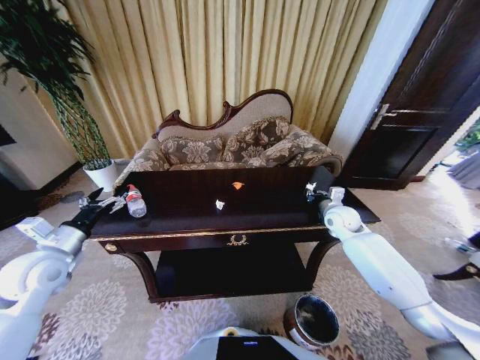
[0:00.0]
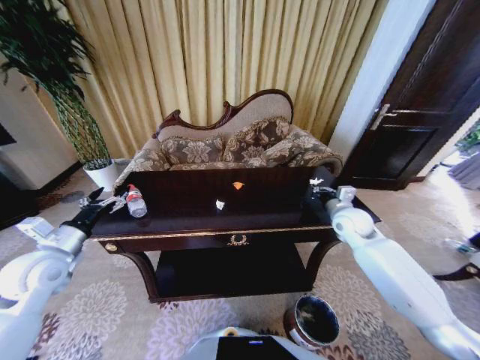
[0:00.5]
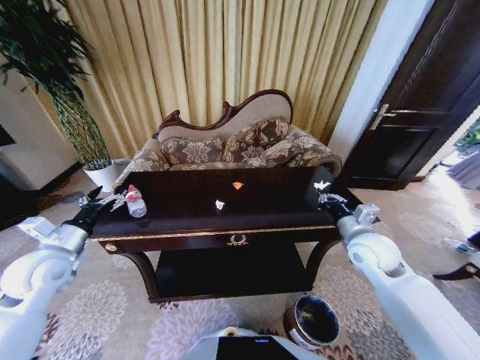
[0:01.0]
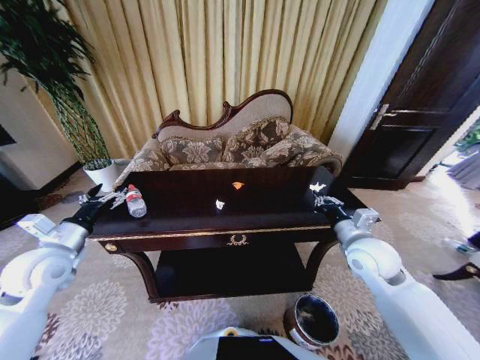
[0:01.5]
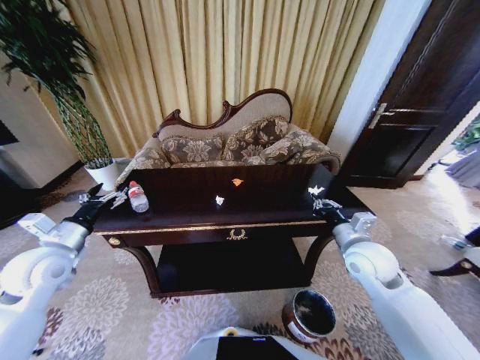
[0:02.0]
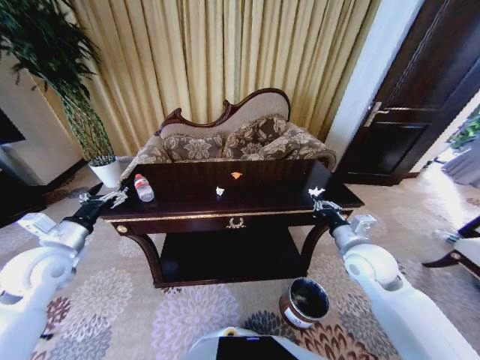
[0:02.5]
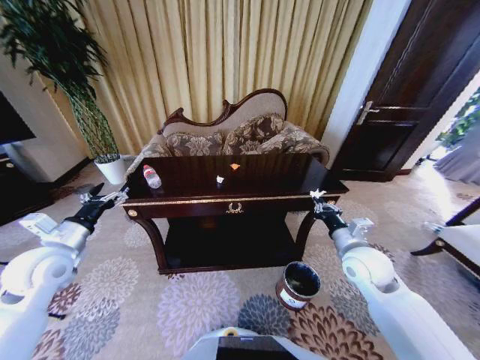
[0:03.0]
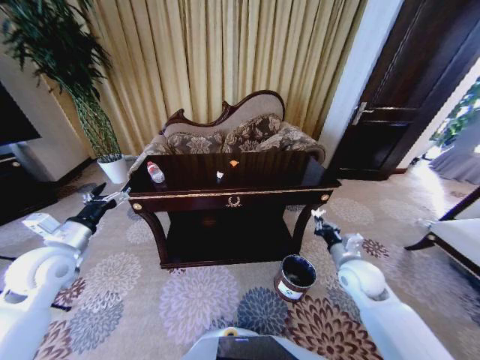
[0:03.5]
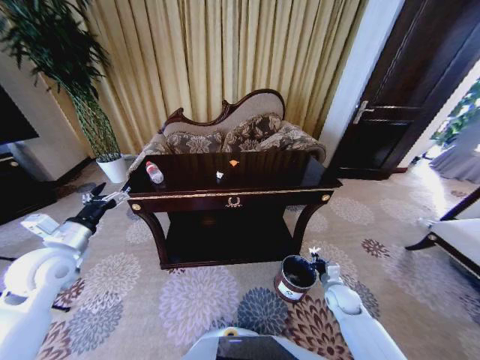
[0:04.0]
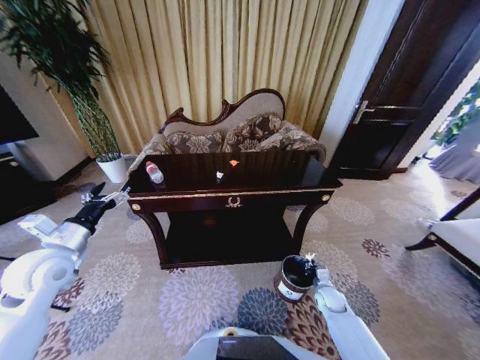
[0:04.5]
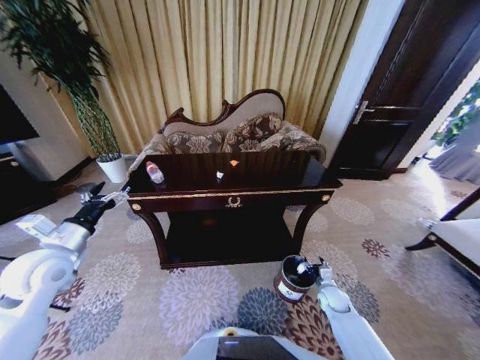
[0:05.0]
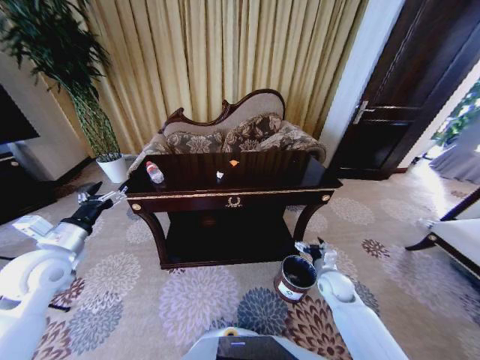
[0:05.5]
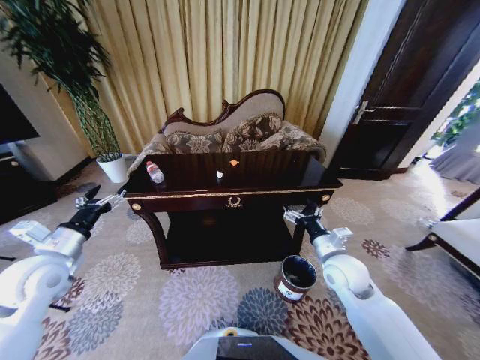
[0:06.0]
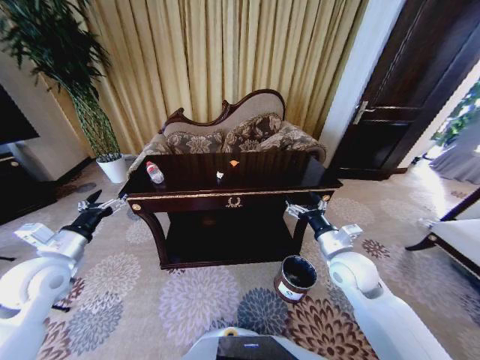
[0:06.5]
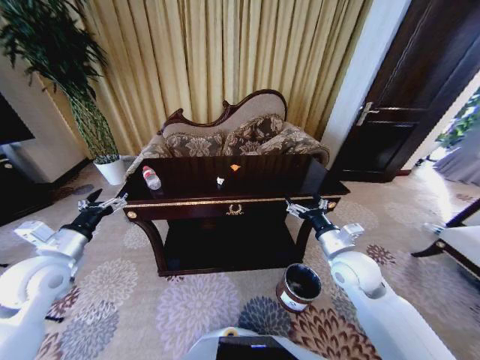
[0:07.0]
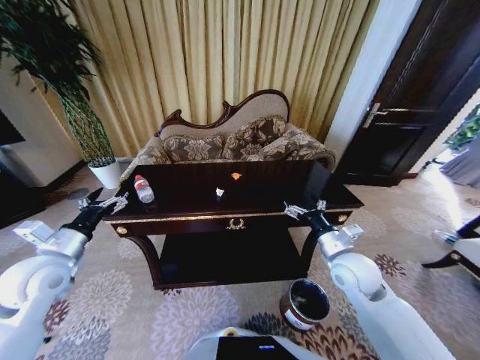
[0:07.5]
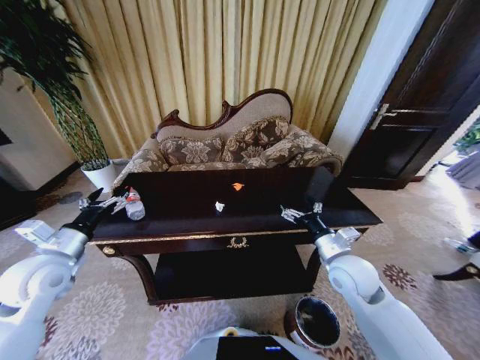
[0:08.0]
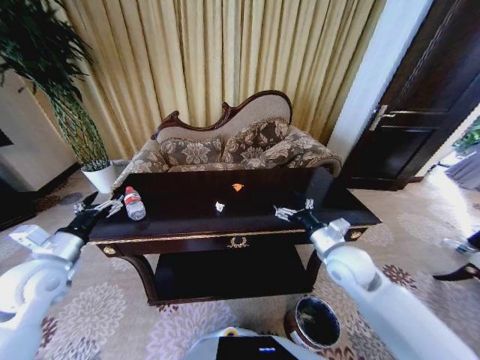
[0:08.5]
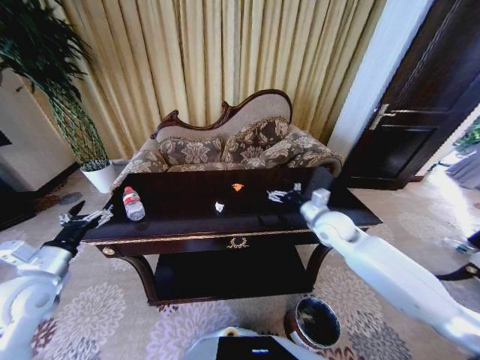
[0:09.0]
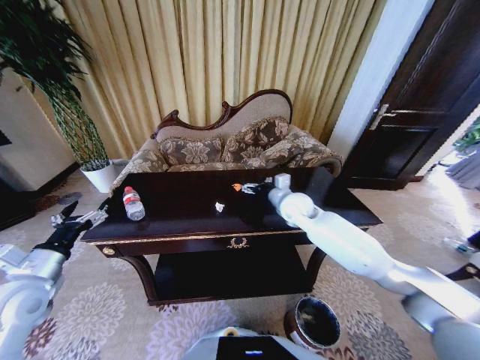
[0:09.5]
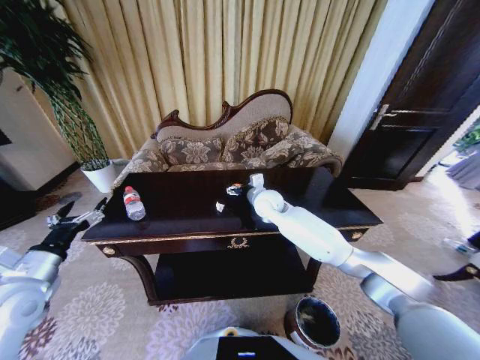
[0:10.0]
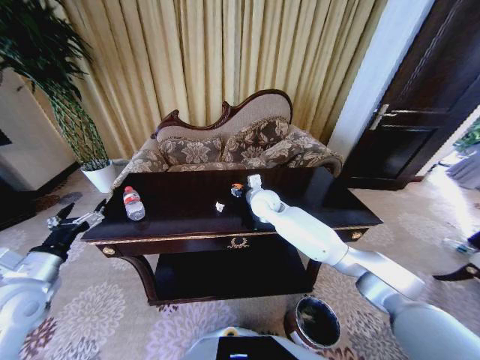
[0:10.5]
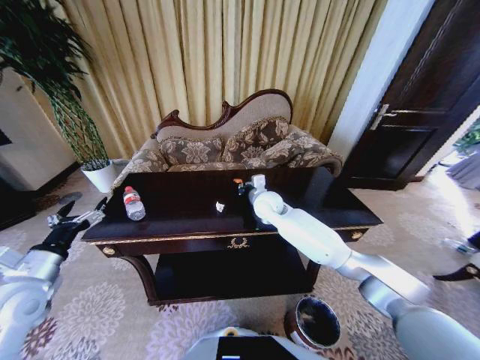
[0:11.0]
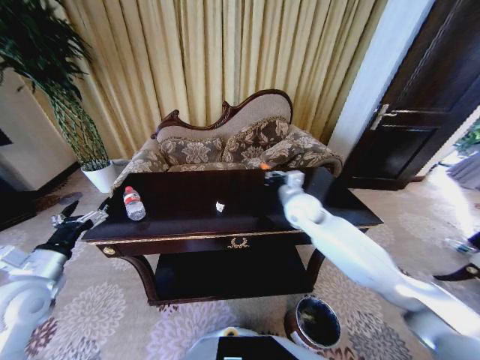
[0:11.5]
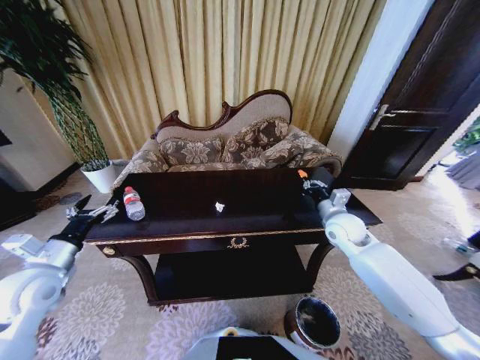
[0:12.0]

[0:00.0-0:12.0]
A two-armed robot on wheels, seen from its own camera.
Task of the whole recording: Move to the front of the table and place the trash on the table into the trash bin.
0:00.0 to 0:02.0: The right gripper shifts some 15 cm backward.
0:02.0 to 0:04.0: The right gripper is displaced downward by some 25 cm.
0:04.0 to 0:06.0: The right gripper is displaced upward and to the left by approximately 20 cm, and opens.
0:08.0 to 0:10.0: The right gripper goes roughly 30 cm forward and to the left. The left gripper shifts approximately 5 cm backward.
0:10.0 to 0:12.0: The right gripper goes approximately 25 cm to the right and backward, and closes its fingers.

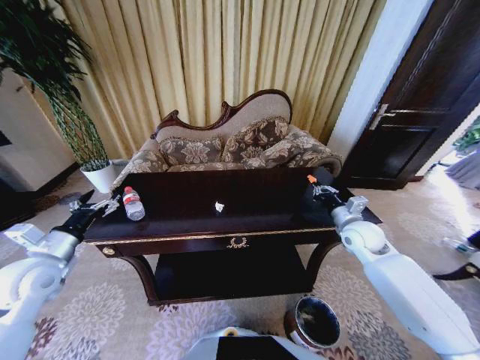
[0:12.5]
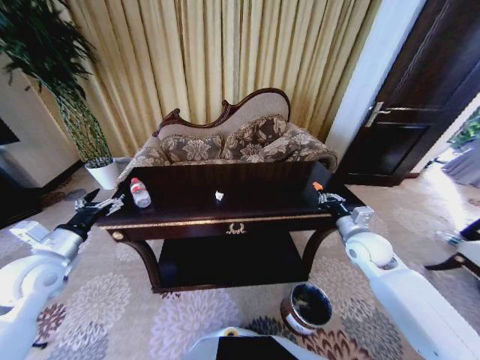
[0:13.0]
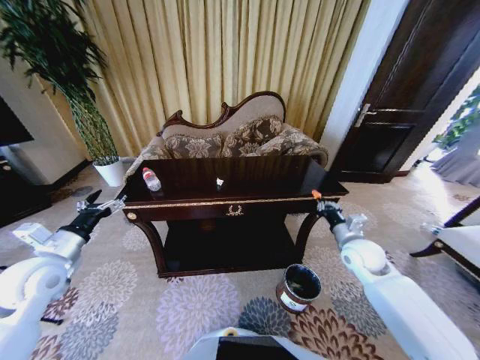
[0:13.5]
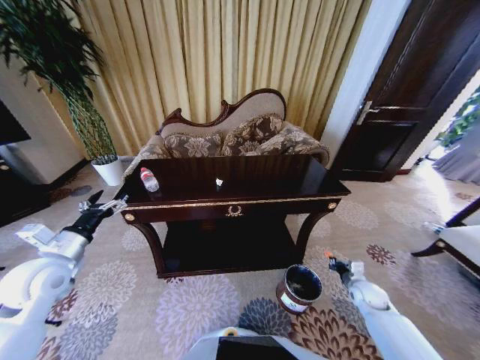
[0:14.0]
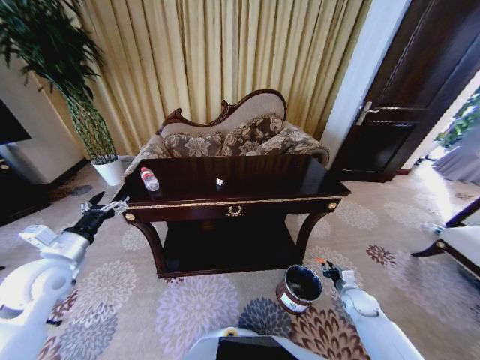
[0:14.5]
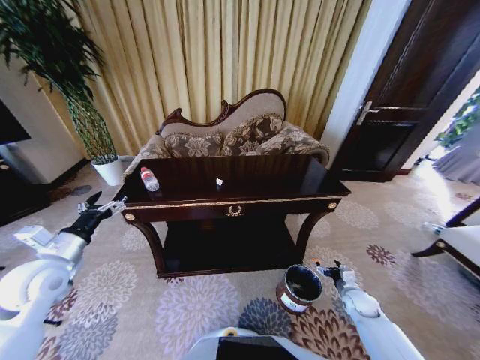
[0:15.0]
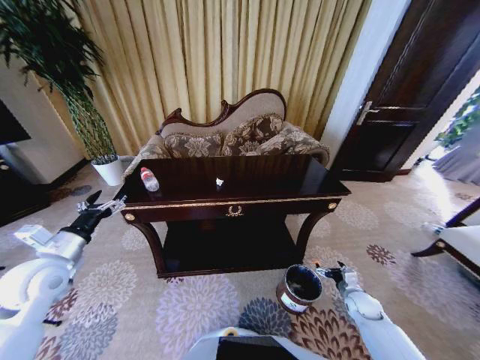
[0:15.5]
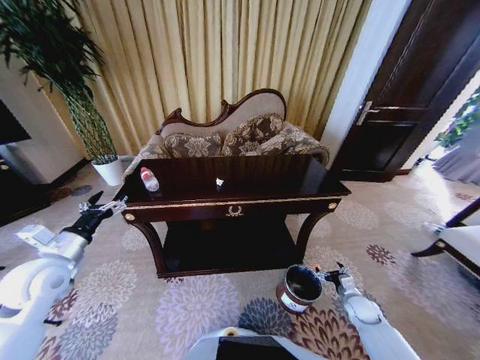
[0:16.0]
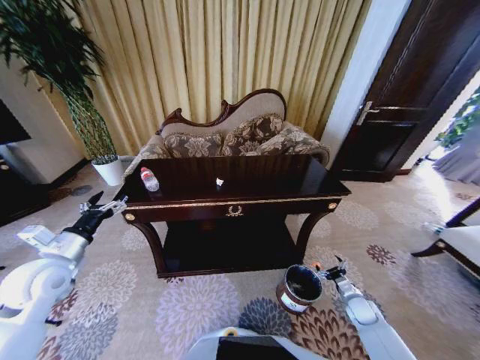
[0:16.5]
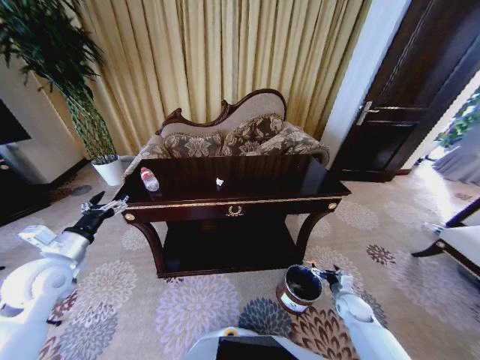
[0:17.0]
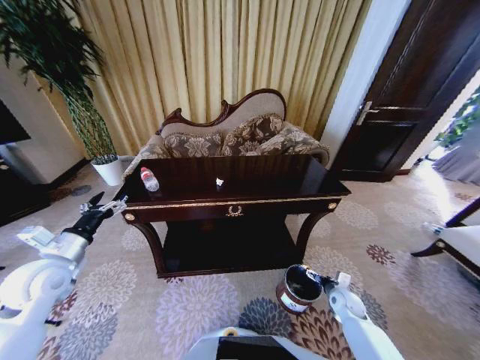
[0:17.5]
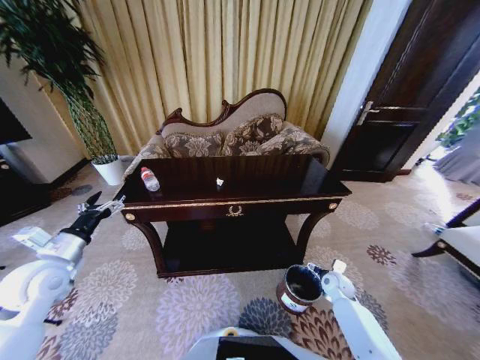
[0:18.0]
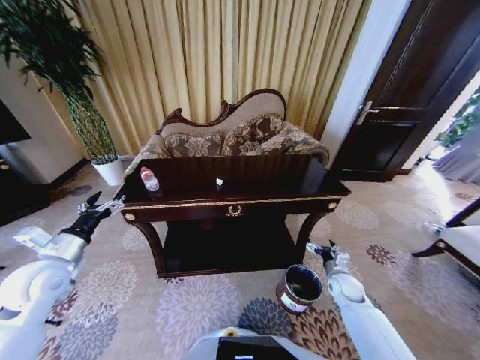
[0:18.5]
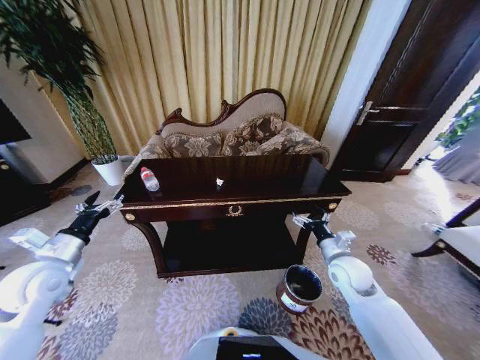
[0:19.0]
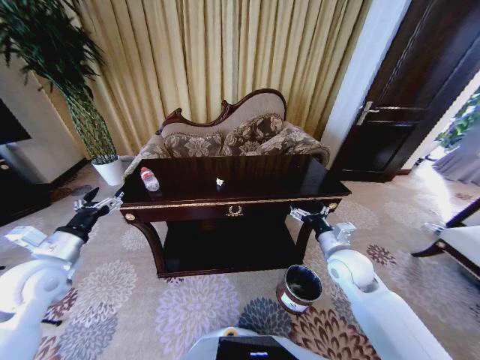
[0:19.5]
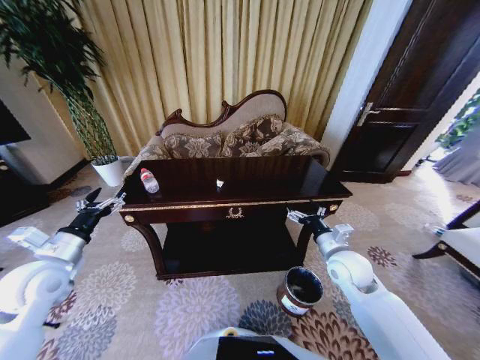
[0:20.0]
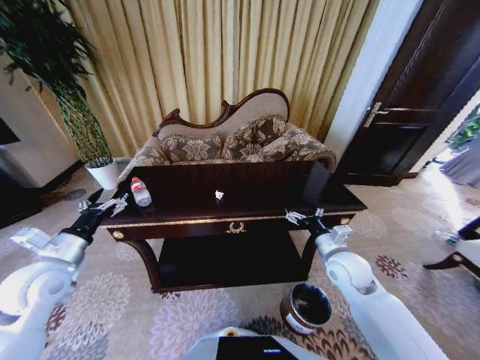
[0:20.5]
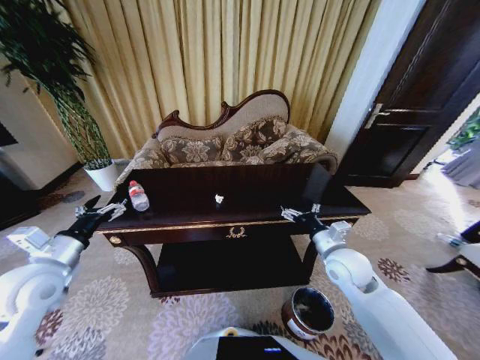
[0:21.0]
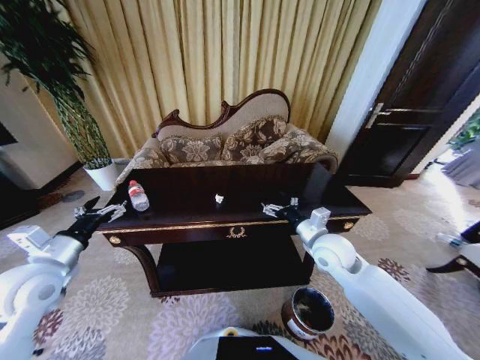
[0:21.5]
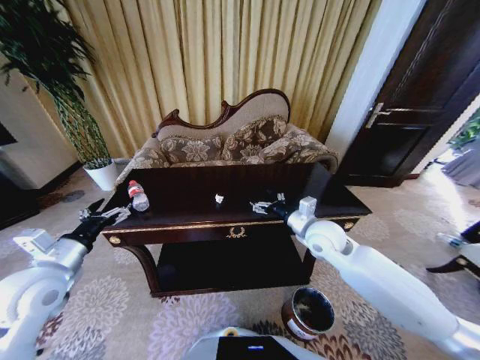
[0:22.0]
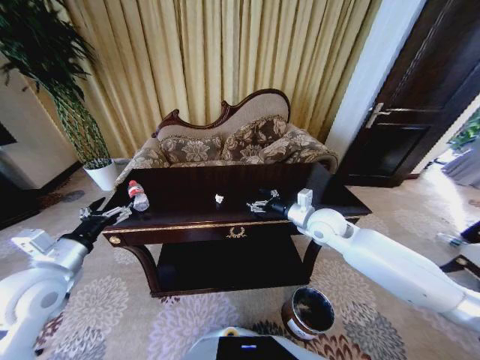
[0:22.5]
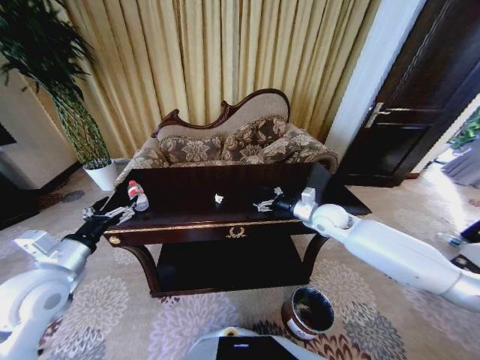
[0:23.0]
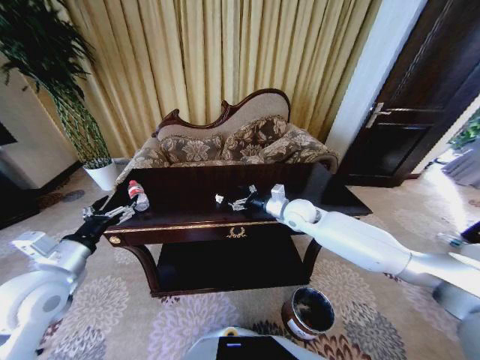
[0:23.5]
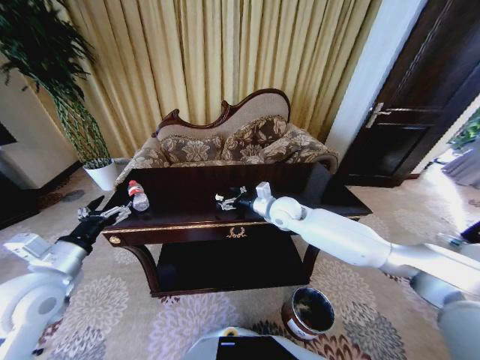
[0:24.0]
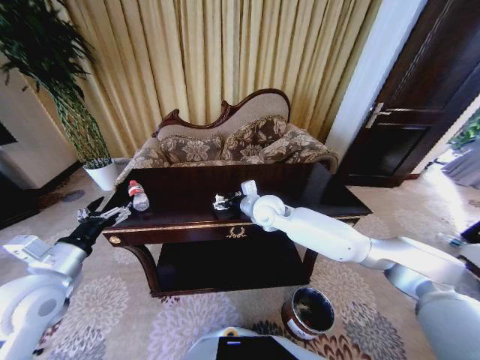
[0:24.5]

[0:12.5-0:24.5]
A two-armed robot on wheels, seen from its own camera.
Task of the whole recording: Move to the front of the table and place the trash on the table into the trash bin.
0:12.5 to 0:14.5: The right gripper moves downward and backward, about 30 cm.
0:14.5 to 0:16.5: The right gripper opens its fingers.
0:16.5 to 0:18.5: The right gripper goes about 10 cm upward, to the left and forward.
0:18.5 to 0:20.5: The right gripper shifts approximately 20 cm upward and to the left.
0:20.5 to 0:22.5: The right gripper heads forward and upward, covering approximately 10 cm.
0:22.5 to 0:24.5: The right gripper heads to the left, covering roughly 15 cm.

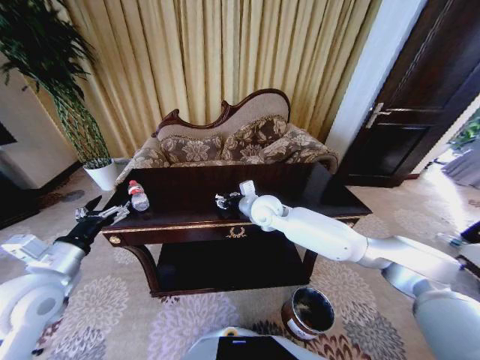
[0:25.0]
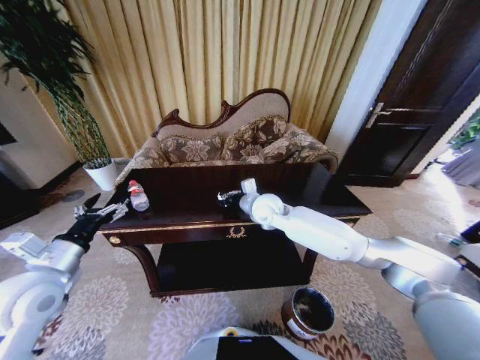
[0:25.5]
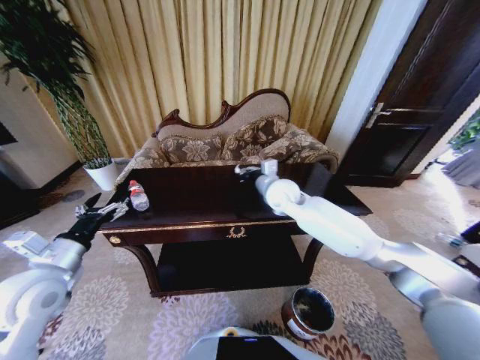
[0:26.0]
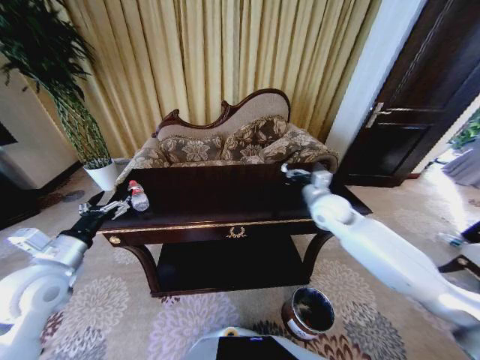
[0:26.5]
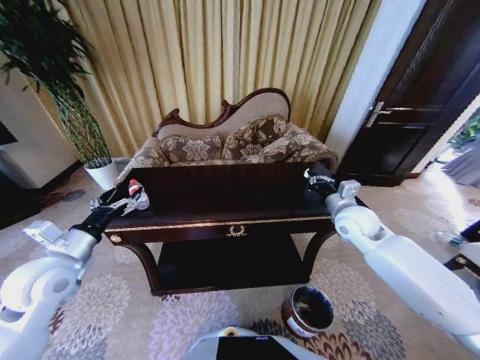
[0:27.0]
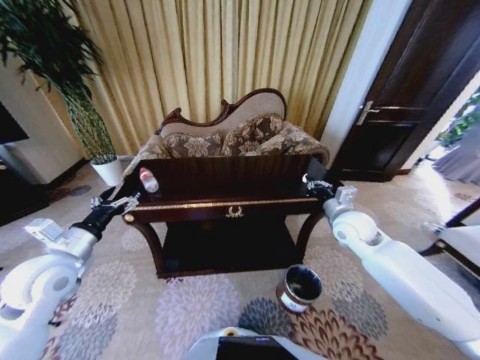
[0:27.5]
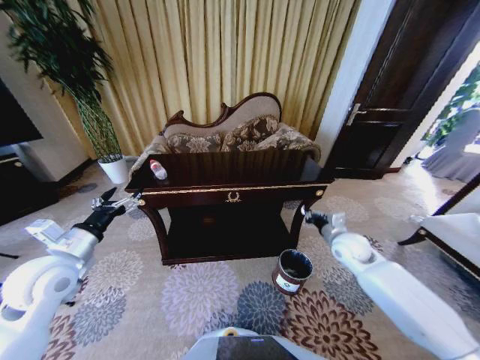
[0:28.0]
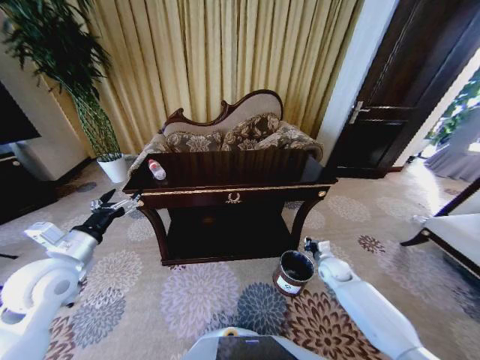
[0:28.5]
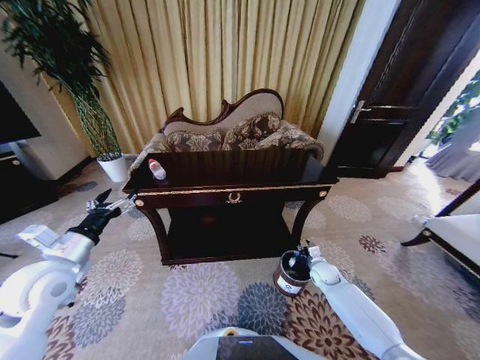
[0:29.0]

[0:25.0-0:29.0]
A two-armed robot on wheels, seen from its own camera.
Task of the whole recording: Move to the front of the table and place the trash on the table into the trash bin.
0:25.0 to 0:27.0: The right gripper goes roughly 25 cm to the right, and closes up.
0:27.0 to 0:29.0: The right gripper heads downward, covering some 30 cm.
